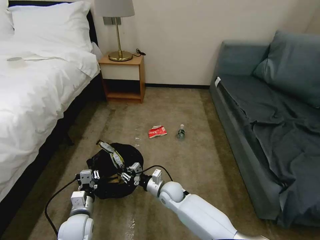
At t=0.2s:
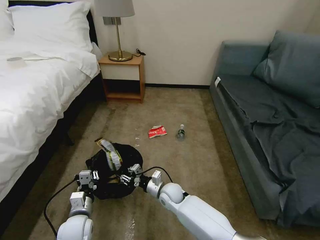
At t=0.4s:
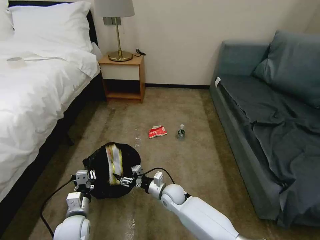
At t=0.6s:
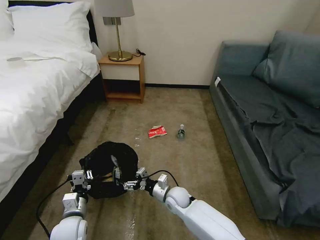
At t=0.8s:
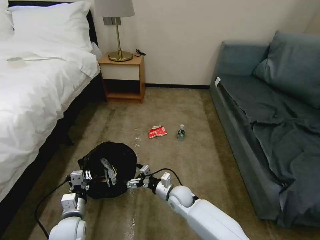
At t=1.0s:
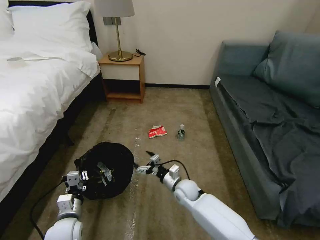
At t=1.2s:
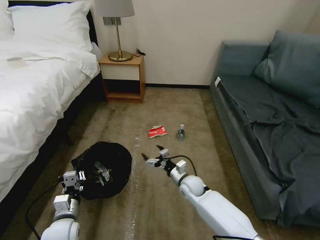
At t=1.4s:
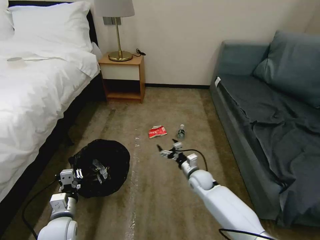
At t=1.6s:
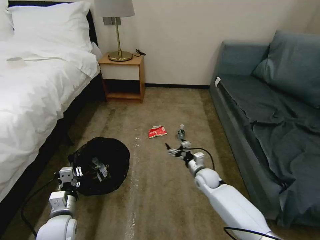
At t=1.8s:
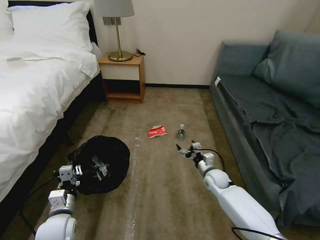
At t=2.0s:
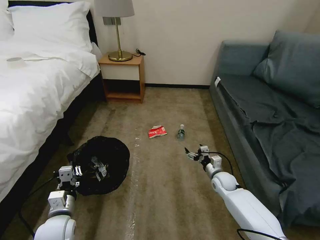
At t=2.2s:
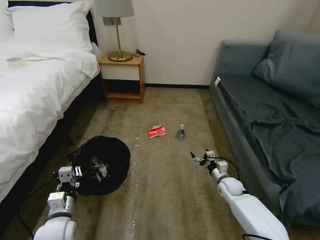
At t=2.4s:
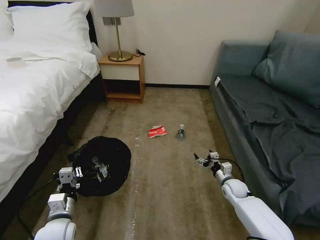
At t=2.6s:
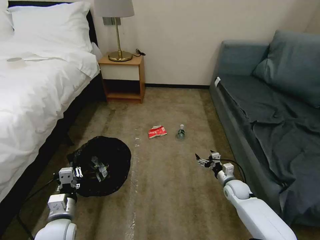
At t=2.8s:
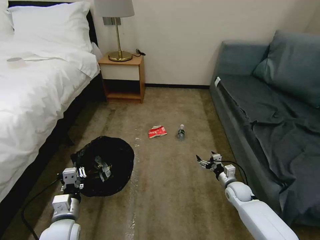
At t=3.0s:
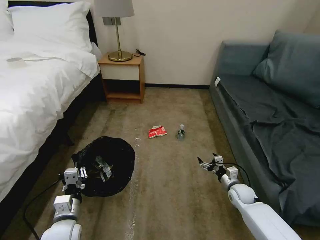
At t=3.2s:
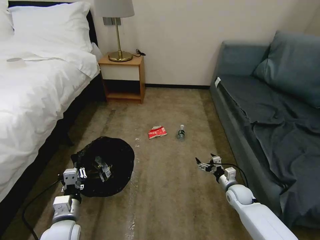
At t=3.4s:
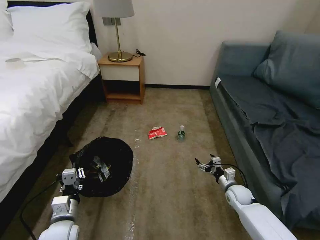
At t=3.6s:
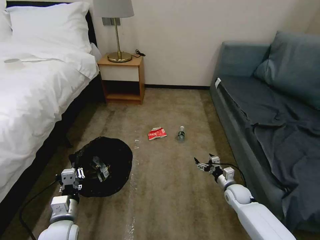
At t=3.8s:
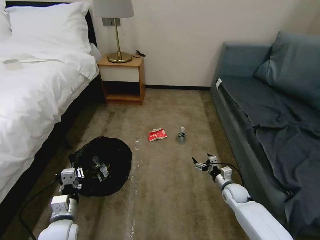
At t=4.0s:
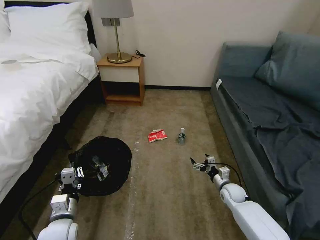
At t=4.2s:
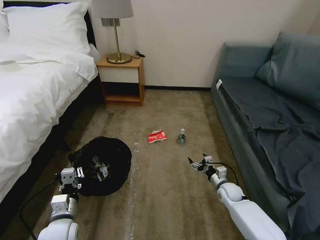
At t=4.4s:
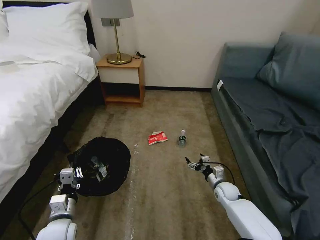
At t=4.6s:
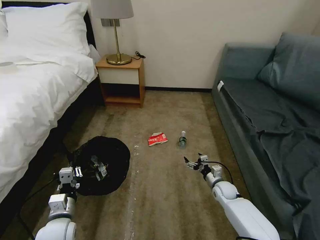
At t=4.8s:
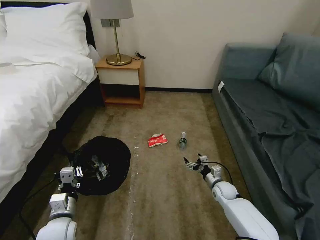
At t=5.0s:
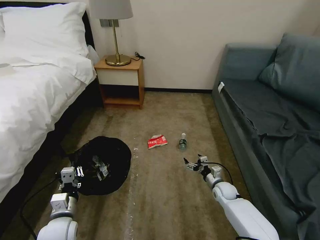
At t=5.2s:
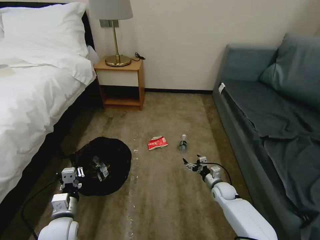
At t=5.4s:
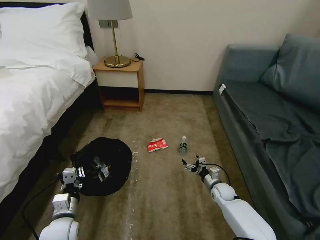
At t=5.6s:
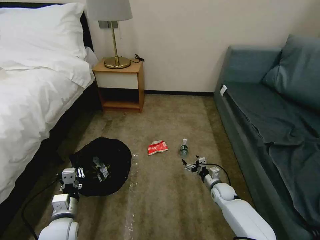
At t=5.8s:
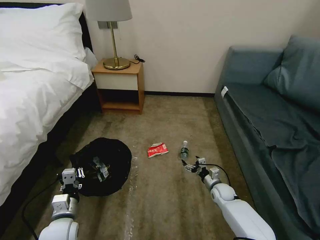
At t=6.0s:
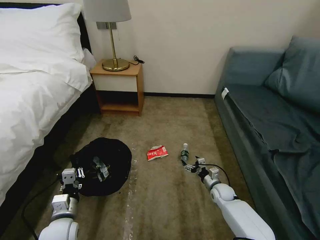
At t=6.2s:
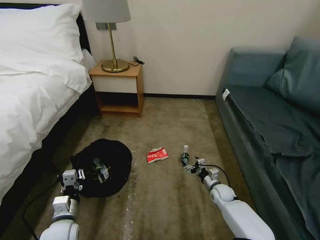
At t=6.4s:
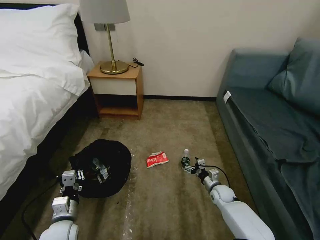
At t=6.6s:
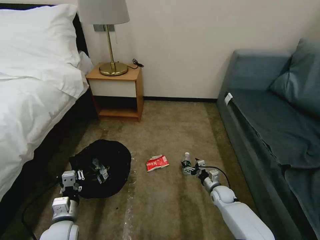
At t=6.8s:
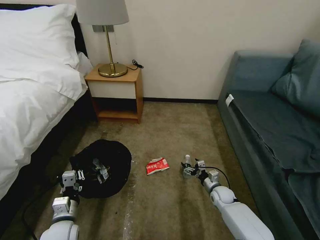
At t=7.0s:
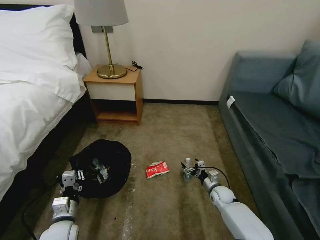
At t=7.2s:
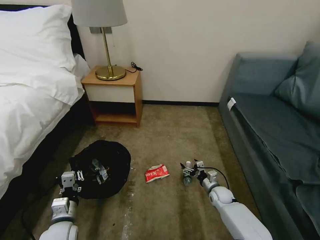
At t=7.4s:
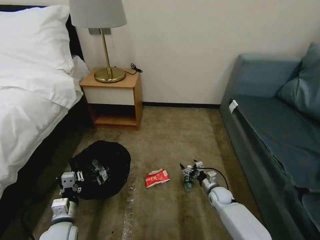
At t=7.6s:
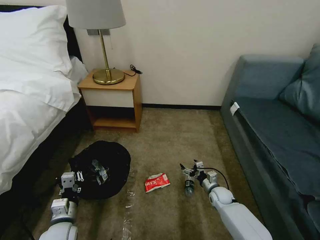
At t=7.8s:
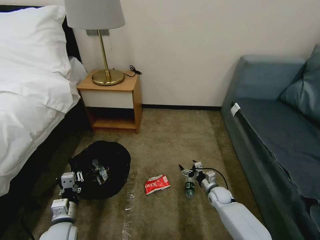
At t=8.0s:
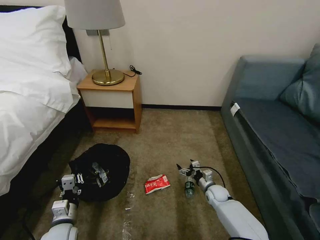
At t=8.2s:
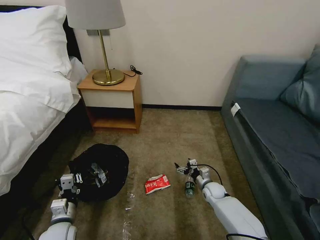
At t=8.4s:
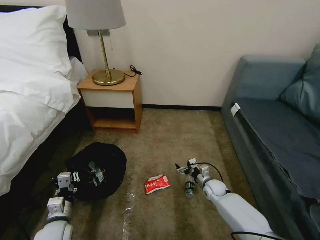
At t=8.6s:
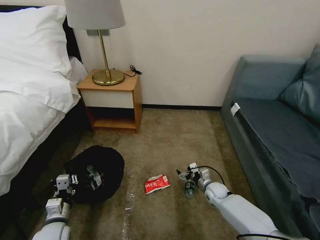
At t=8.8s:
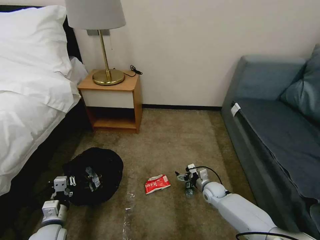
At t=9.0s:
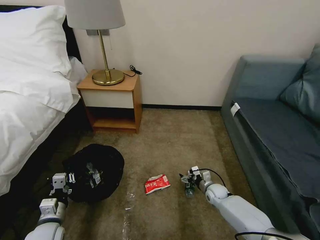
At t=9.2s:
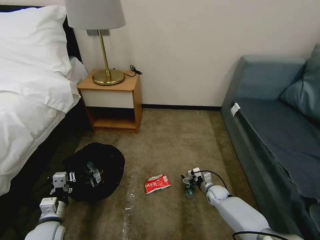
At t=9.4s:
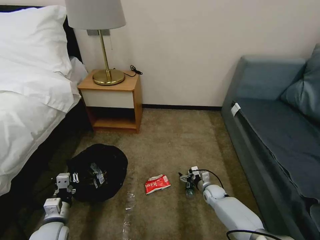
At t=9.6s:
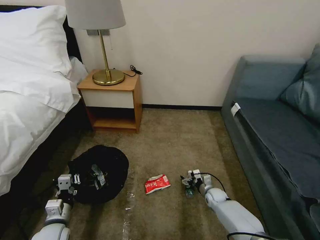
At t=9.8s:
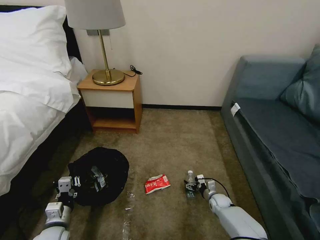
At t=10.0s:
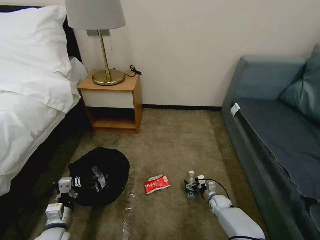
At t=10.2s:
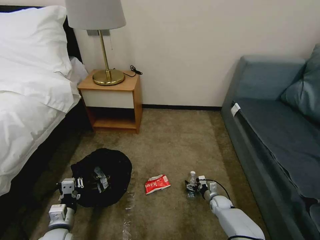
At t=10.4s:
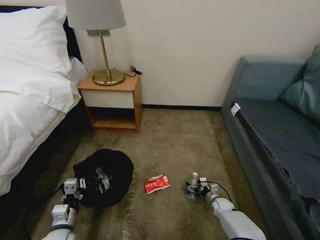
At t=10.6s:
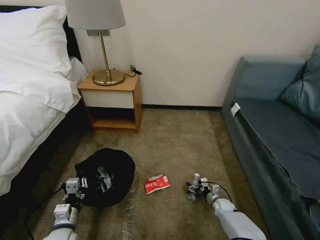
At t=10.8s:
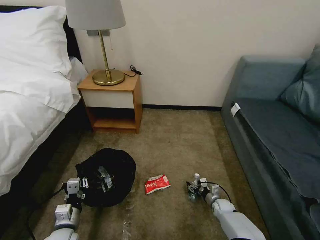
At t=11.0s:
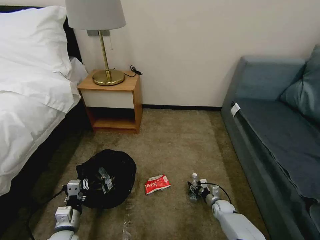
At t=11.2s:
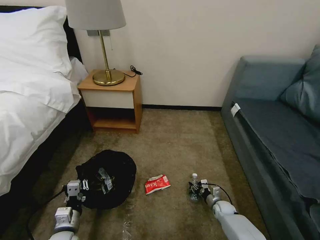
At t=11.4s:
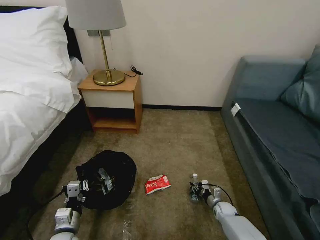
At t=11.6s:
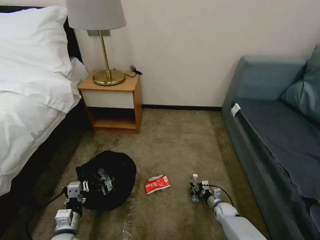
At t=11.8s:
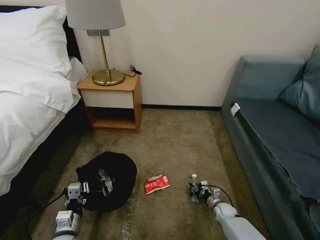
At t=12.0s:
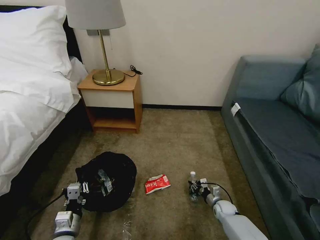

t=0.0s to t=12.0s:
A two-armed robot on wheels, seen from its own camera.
Task of the whole recording: Pick up the trash bin, then pick up the garbage on the floor and place it into the trash bin.
t=0.0s to t=1.6s: The left gripper ends up roughly 5 cm from where it was, while the right gripper goes approximately 15 cm to the right, and opens its fingers.
t=1.6s to t=3.0s: The right gripper moves to the right, about 15 cm.
t=3.0s to t=4.4s: The right gripper shifts by some 5 cm.
t=4.4s to t=6.0s: There are only small adjustments of the grippers.
t=7.6s to t=9.0s: The grippers stay close to where they were, moving slightly.
t=9.0s to t=10.4s: The right gripper is displaced downward by about 10 cm.
t=10.4s to t=12.0s: The right gripper closes its fingers.

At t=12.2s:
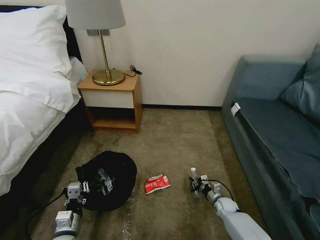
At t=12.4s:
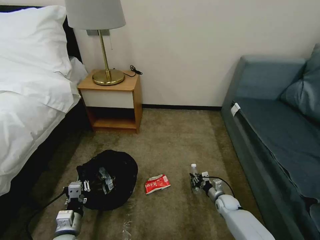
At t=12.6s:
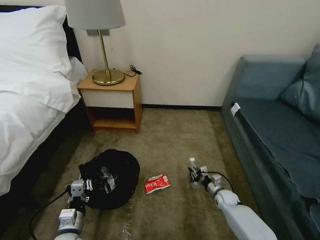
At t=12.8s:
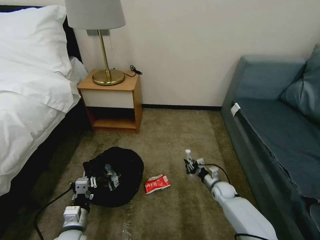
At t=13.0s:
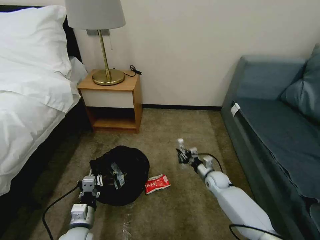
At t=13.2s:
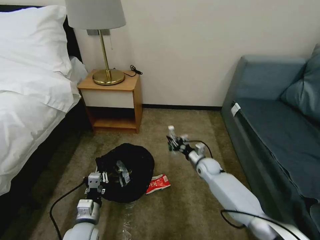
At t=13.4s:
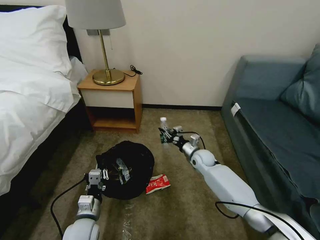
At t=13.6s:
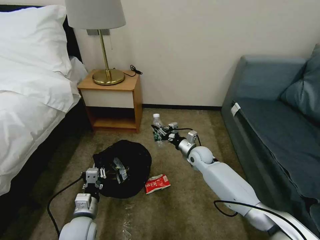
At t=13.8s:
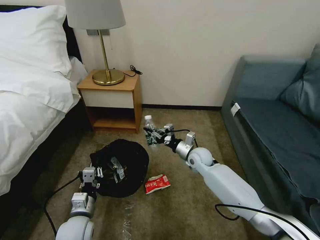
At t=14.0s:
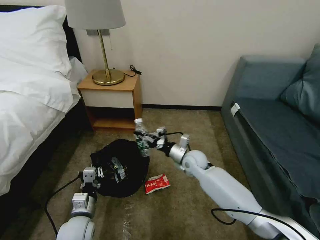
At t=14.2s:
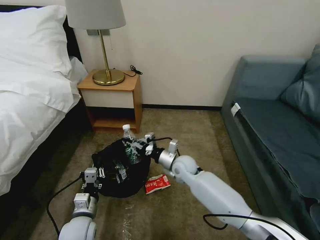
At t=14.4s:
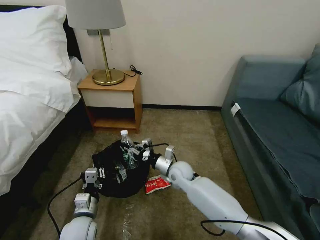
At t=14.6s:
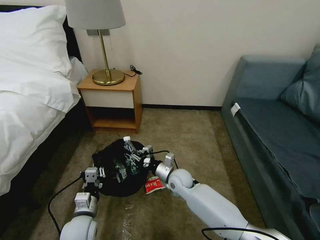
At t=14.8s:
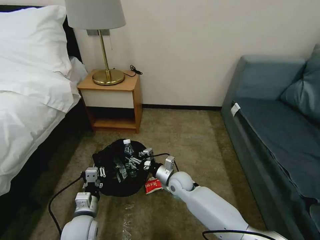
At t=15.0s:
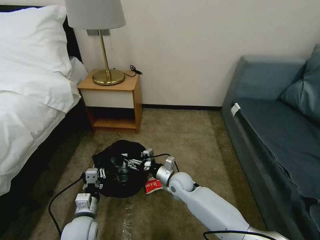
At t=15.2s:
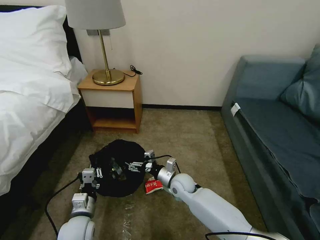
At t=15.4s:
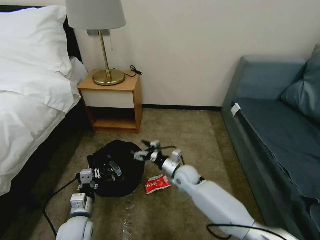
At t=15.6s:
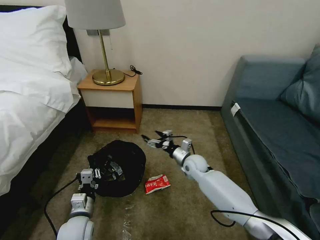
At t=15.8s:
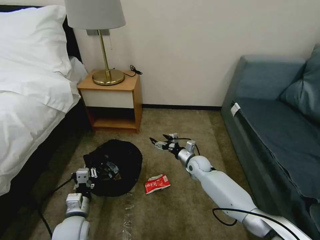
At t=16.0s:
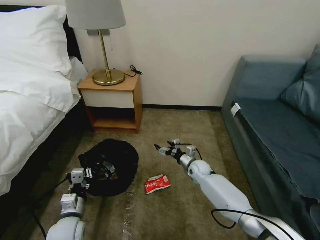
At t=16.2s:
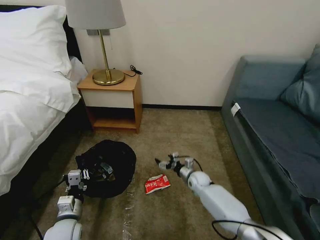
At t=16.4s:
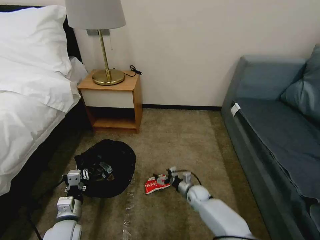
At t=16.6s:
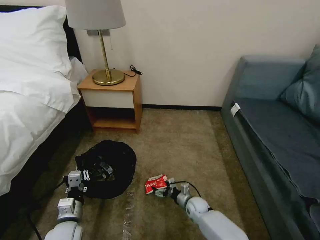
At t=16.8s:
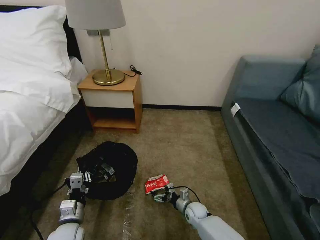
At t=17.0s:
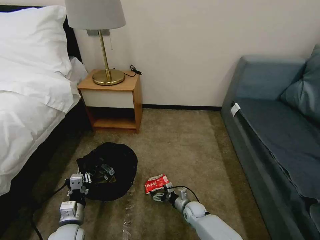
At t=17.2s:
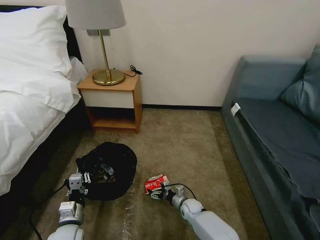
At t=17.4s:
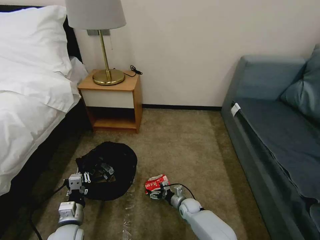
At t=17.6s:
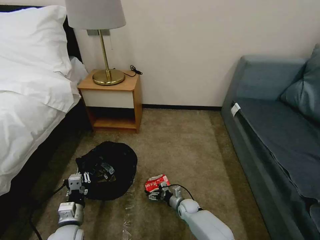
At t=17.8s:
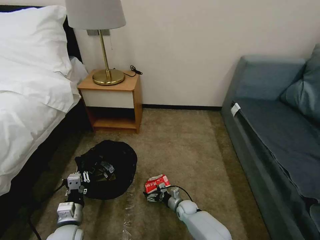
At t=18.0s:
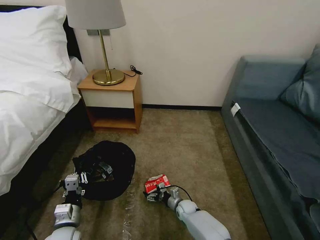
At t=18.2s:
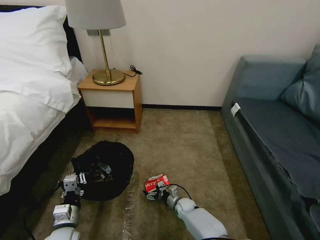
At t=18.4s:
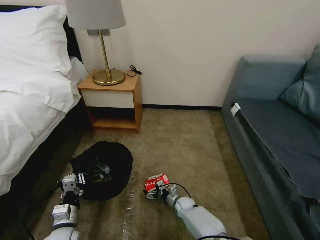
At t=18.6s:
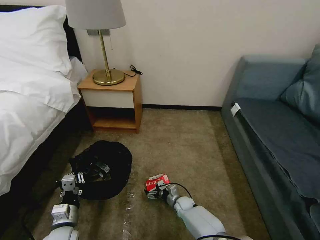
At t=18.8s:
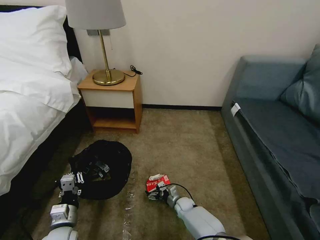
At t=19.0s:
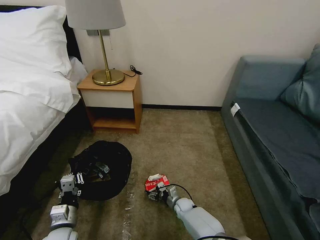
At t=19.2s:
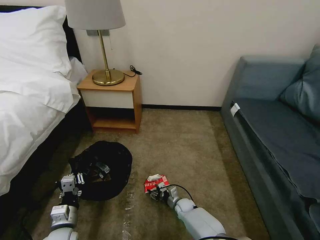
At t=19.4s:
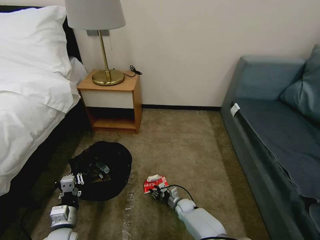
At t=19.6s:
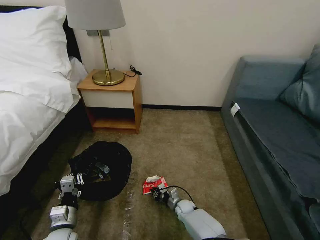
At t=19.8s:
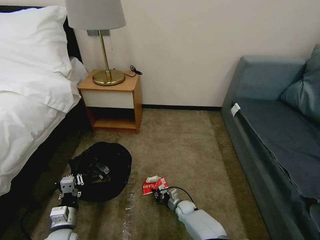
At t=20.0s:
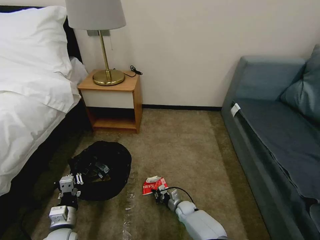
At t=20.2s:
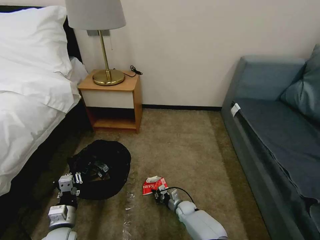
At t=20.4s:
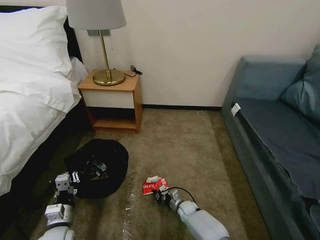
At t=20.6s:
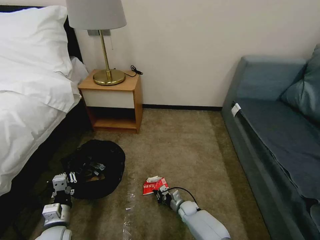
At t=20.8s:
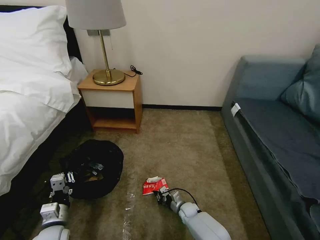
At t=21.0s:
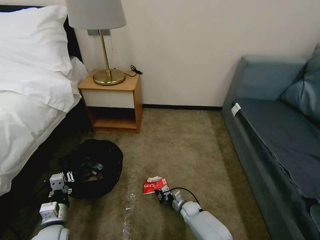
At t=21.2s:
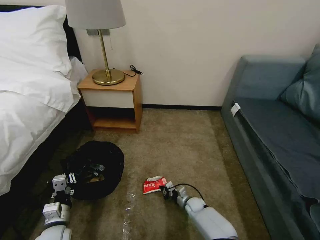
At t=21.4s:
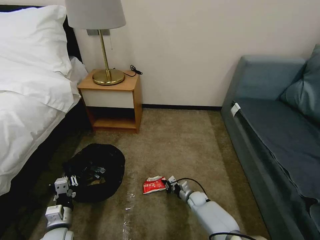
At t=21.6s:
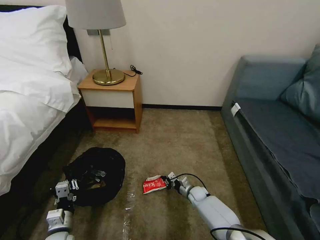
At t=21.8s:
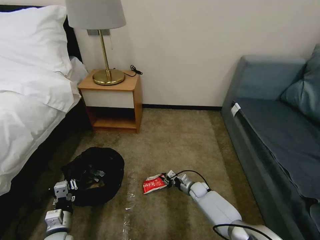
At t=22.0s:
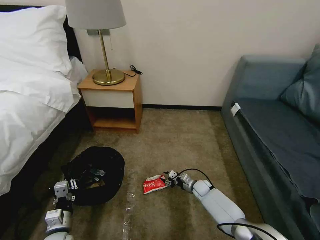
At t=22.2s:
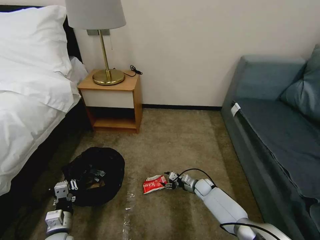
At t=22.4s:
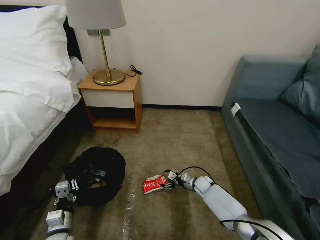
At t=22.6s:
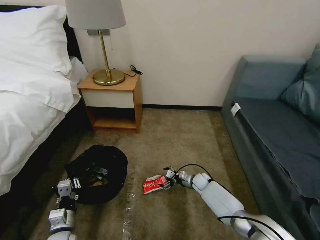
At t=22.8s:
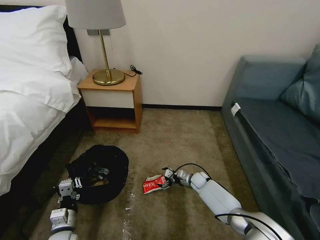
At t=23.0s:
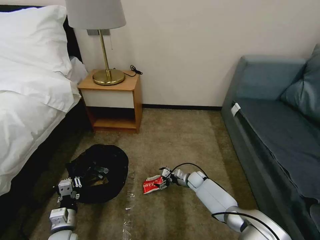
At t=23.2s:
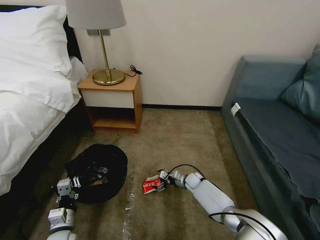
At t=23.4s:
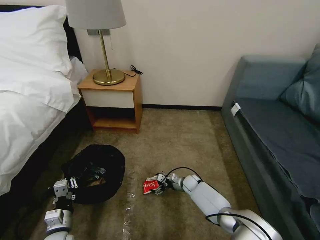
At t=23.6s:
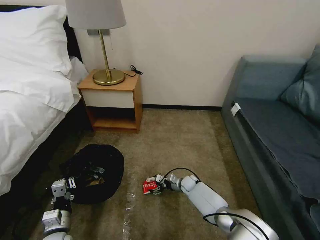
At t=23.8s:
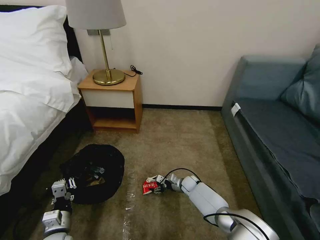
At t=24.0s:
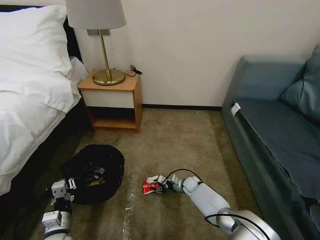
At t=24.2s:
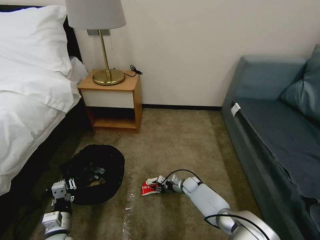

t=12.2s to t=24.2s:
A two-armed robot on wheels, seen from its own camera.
Task of the whole recording: Pick up the trash bin, then pick up the garbage on the floor and place it into the trash bin.
t=12.2s to t=13.8s: The right gripper shifts some 30 cm upward, to the left and forward, while the left gripper ends up roughly 5 cm from where it was.
t=13.8s to t=15.2s: The right gripper shifts some 15 cm backward, to the left and downward, and opens its fingers.
t=15.2s to t=16.6s: The right gripper heads downward and to the right, covering roughly 15 cm.
t=16.6s to t=18.2s: The right gripper shifts by about 5 cm.
t=18.2s to t=19.8s: The right gripper closes.
t=19.8s to t=21.2s: The grippers make only small movements.
t=21.2s to t=22.6s: The right gripper heads forward and upward, covering roughly 15 cm, and opens.
t=22.6s to t=24.2s: The right gripper shifts by approximately 5 cm, and closes.
